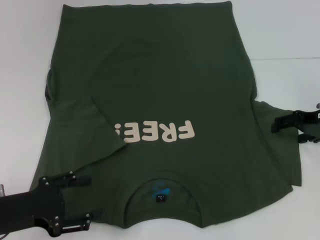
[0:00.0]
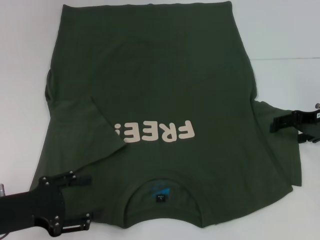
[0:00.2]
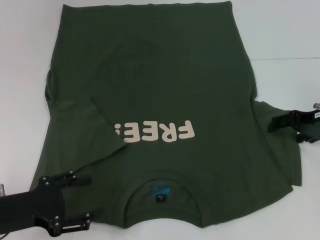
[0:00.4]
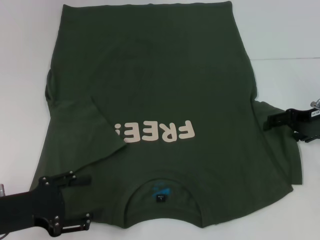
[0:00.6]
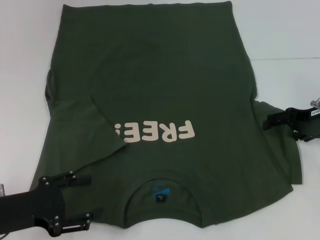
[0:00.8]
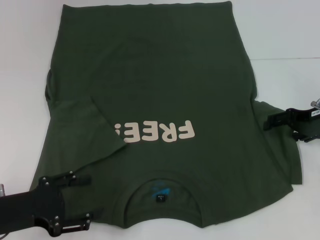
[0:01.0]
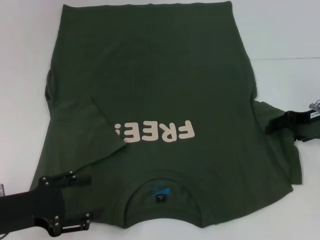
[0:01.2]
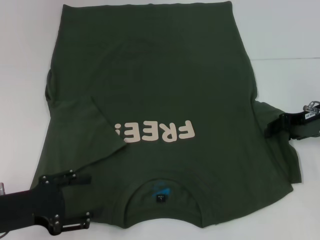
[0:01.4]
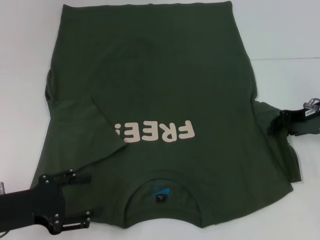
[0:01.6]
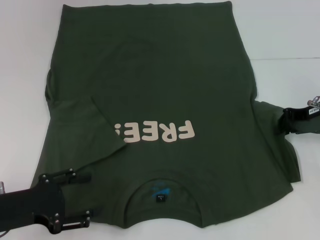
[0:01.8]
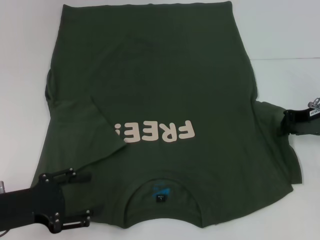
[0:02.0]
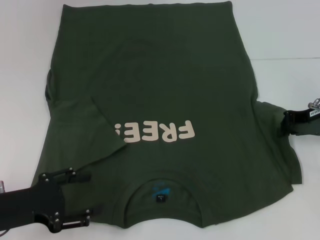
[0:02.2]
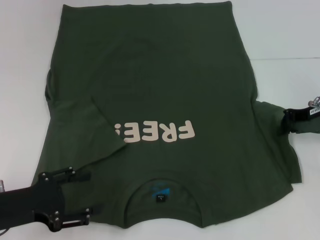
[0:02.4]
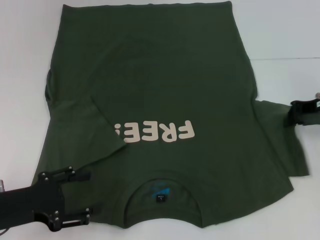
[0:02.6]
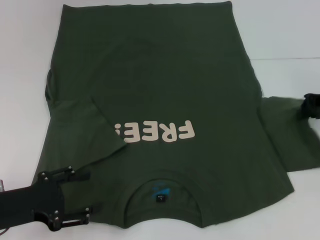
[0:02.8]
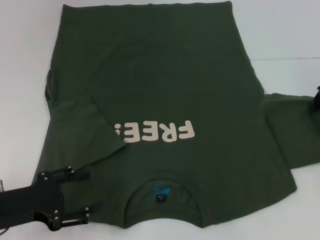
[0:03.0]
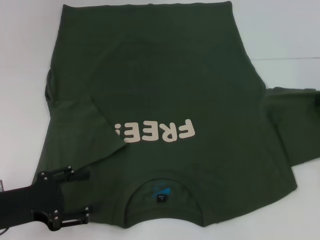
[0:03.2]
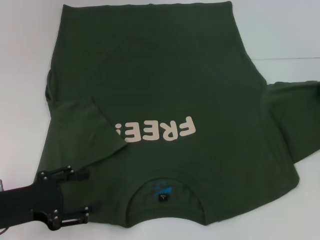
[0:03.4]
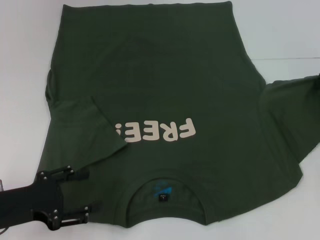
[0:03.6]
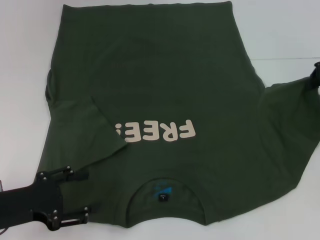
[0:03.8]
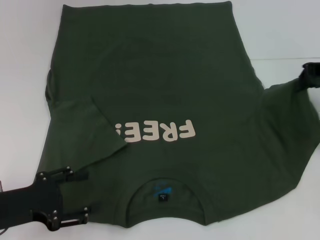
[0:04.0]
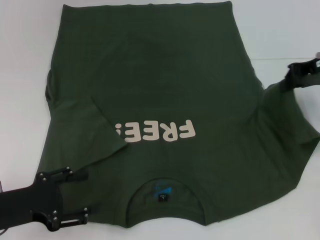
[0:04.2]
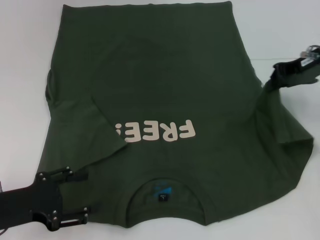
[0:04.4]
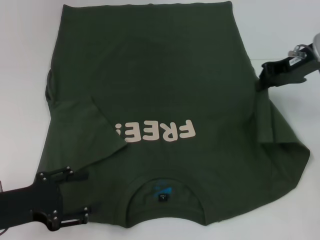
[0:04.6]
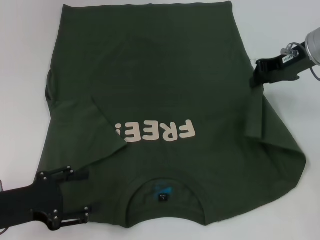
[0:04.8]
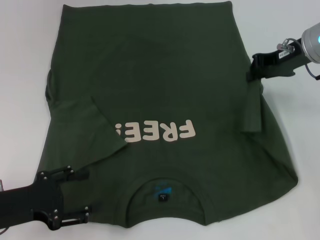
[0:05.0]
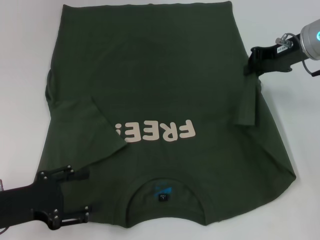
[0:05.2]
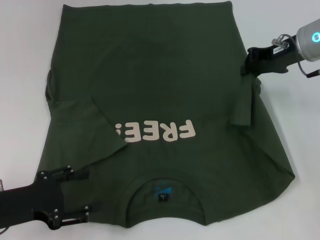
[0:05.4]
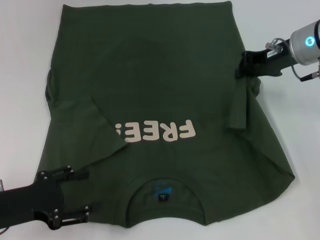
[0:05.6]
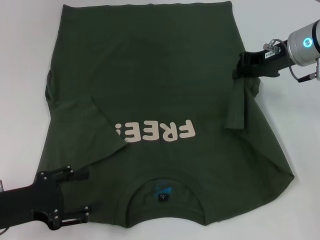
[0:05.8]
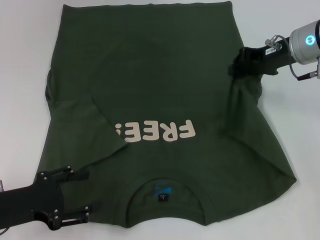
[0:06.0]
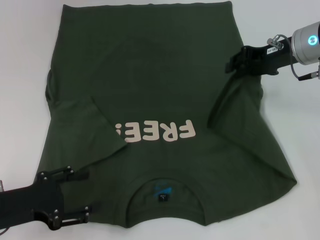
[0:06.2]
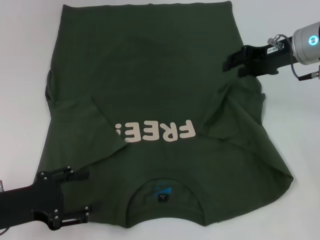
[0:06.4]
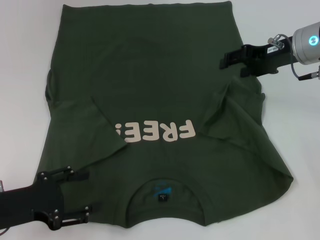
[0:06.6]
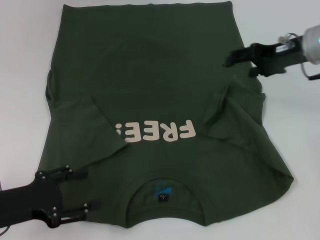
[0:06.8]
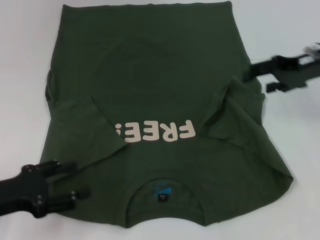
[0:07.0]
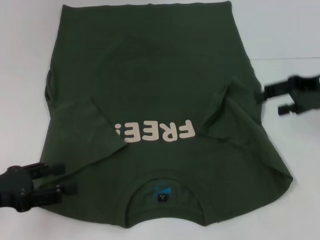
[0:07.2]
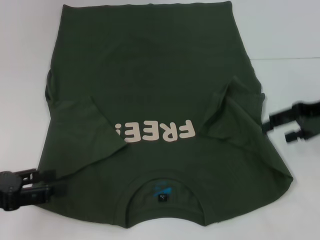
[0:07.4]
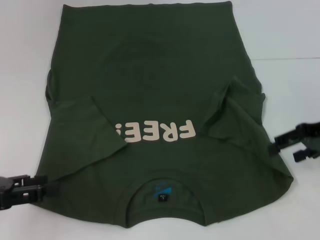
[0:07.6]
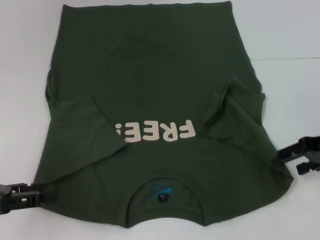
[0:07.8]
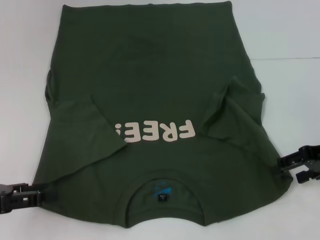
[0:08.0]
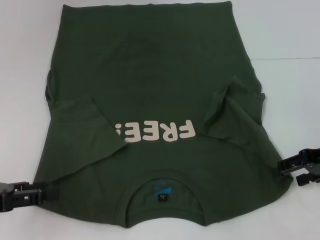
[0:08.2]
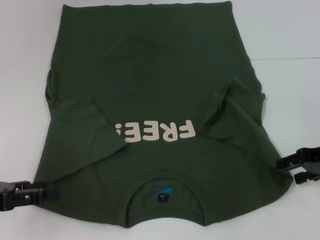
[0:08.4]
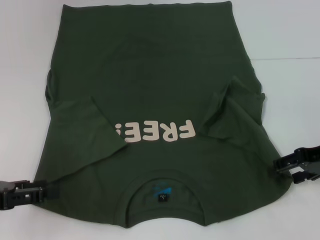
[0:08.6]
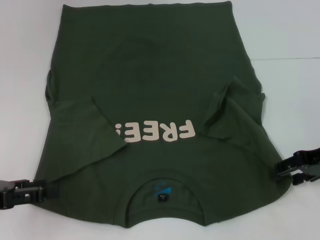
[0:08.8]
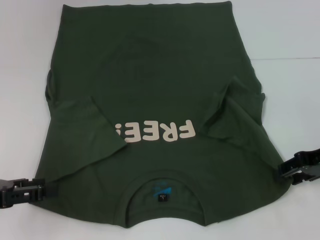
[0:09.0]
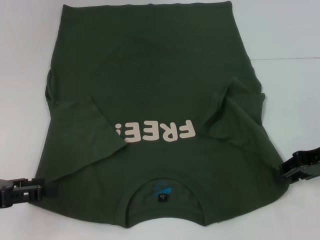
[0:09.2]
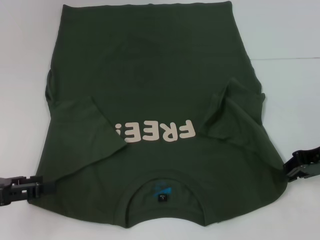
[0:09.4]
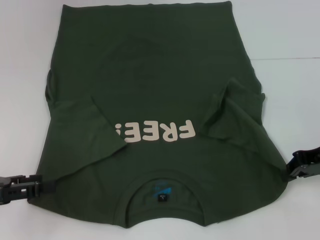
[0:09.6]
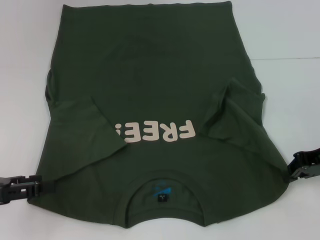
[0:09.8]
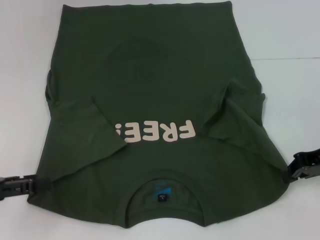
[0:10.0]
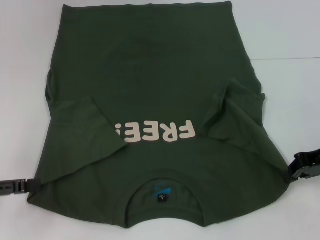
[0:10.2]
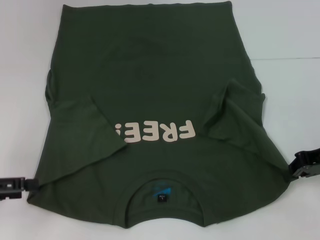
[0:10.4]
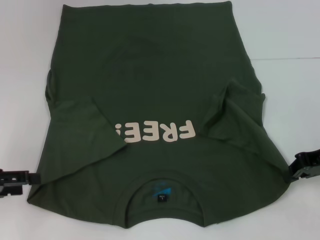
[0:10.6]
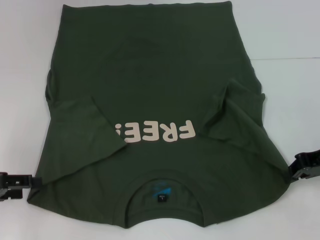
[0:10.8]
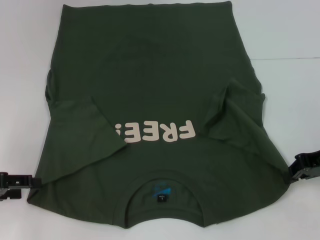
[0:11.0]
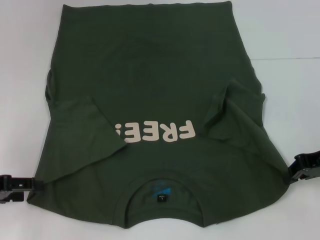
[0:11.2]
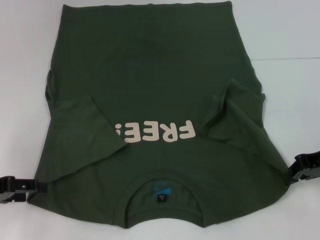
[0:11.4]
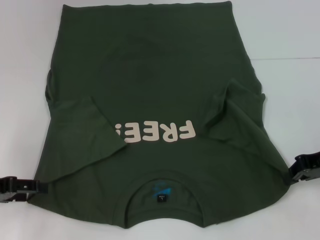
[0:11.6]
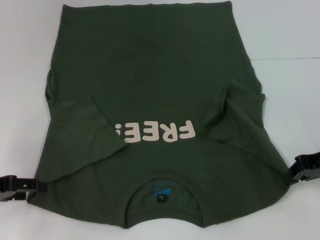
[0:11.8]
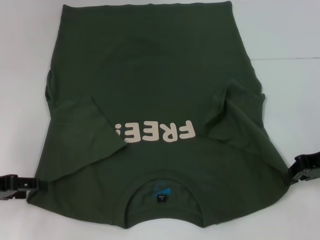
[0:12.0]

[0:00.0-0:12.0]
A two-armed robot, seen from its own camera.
Step, 0:00.0 to 0:06.4: Fold the bottom right sleeve with your right hand.
Step, 0:06.6 to 0:10.0: Grab the bottom right corner with your right hand.
0:00.0 to 0:01.6: The right gripper closes its fingers.
0:01.6 to 0:03.0: The right gripper goes some 5 cm to the right, and closes up.
0:03.0 to 0:04.4: The right gripper travels to the left by some 10 cm.
0:04.4 to 0:06.0: The grippers move only a little.
0:06.0 to 0:07.6: The right gripper is displaced backward and to the right by some 10 cm, and opens its fingers; the left gripper moves upward and to the left, approximately 5 cm.
0:07.6 to 0:09.0: There are only small adjustments of the grippers.
0:09.0 to 0:10.4: The right gripper closes.
0:10.4 to 0:12.0: The grippers stay close to where they were, moving slightly.

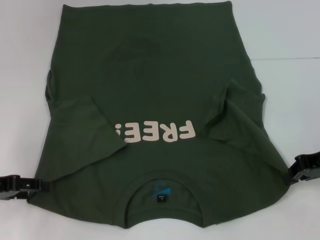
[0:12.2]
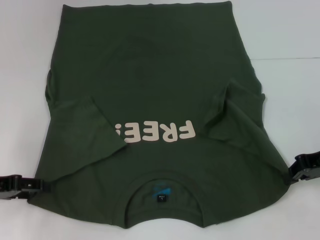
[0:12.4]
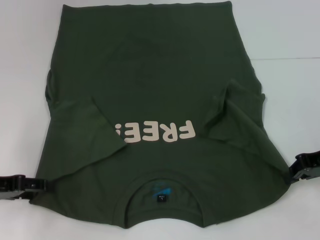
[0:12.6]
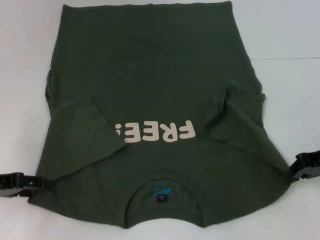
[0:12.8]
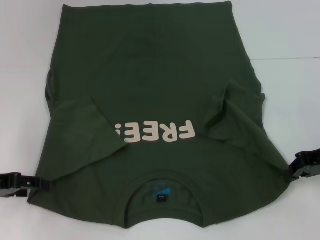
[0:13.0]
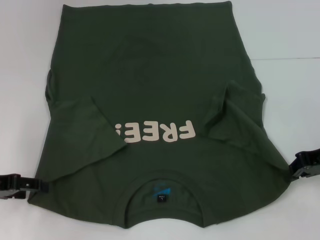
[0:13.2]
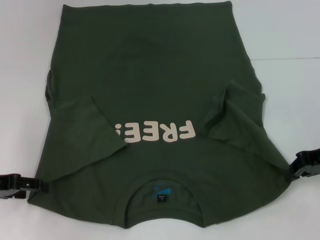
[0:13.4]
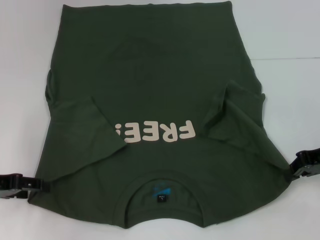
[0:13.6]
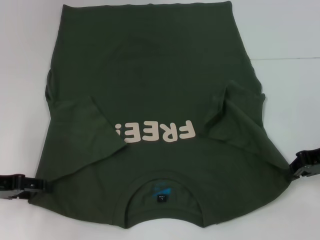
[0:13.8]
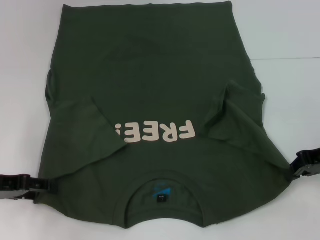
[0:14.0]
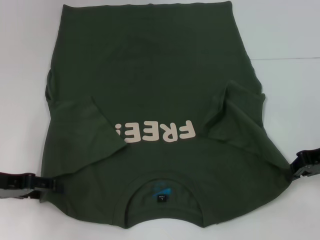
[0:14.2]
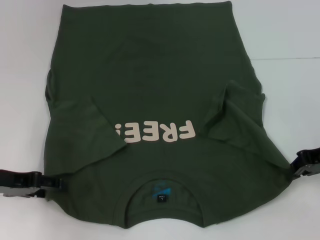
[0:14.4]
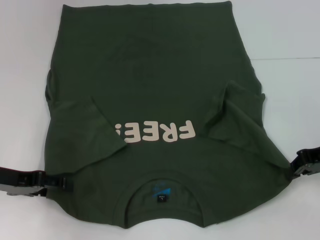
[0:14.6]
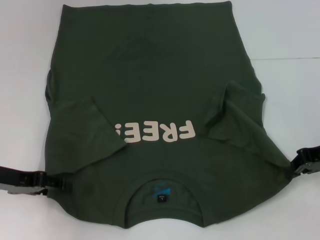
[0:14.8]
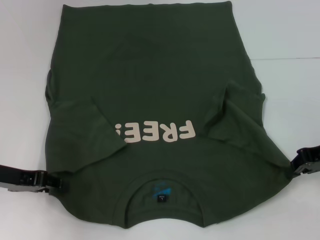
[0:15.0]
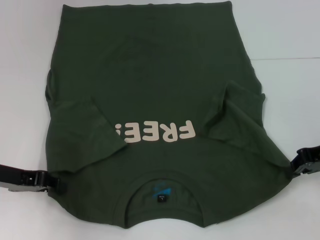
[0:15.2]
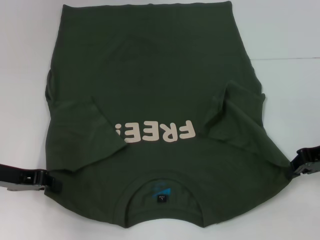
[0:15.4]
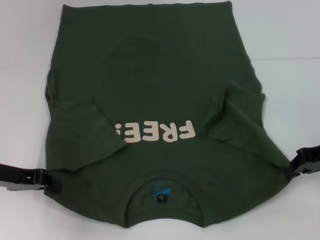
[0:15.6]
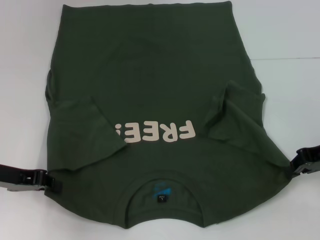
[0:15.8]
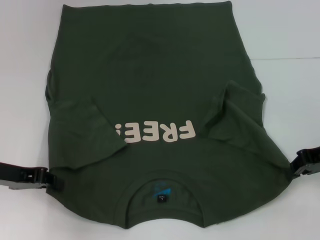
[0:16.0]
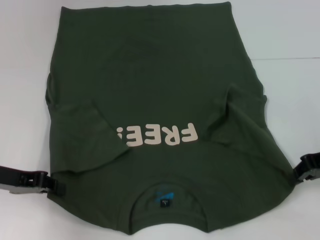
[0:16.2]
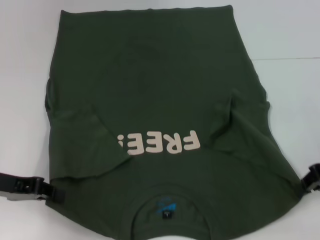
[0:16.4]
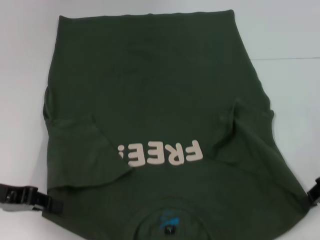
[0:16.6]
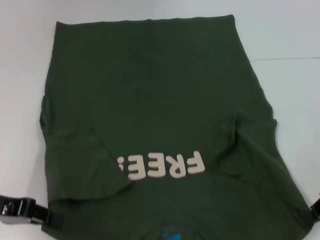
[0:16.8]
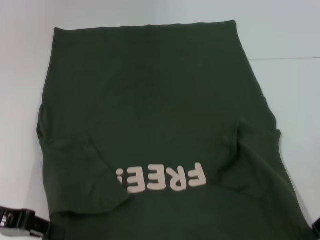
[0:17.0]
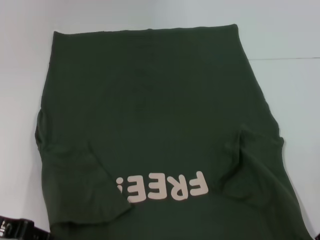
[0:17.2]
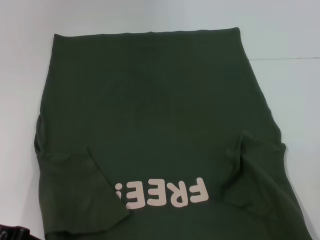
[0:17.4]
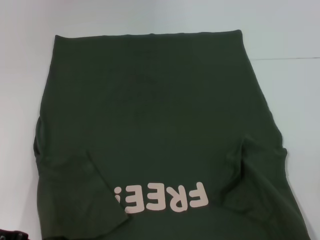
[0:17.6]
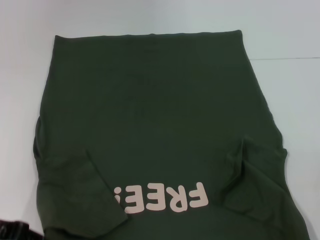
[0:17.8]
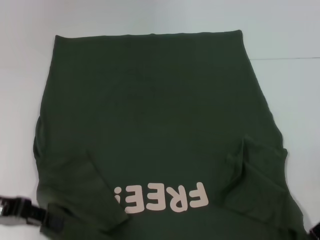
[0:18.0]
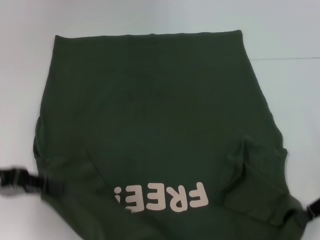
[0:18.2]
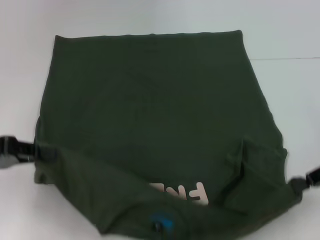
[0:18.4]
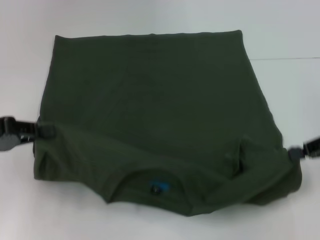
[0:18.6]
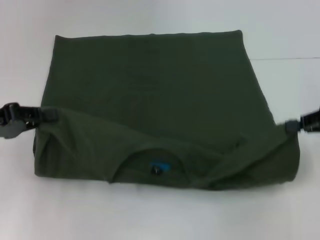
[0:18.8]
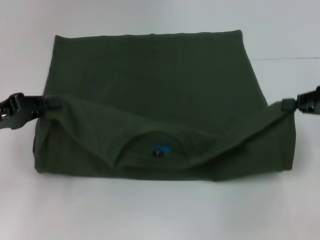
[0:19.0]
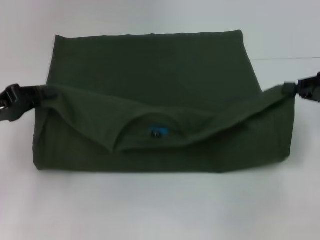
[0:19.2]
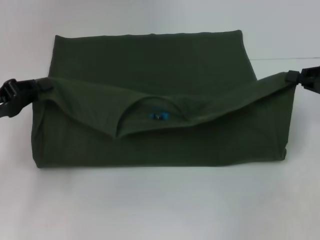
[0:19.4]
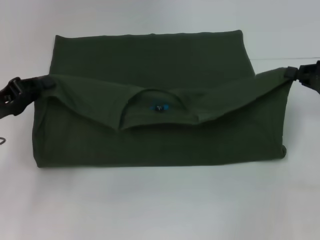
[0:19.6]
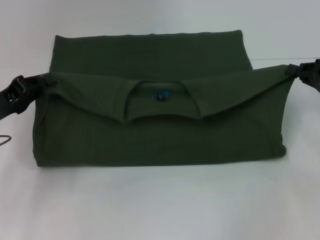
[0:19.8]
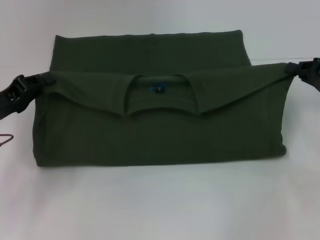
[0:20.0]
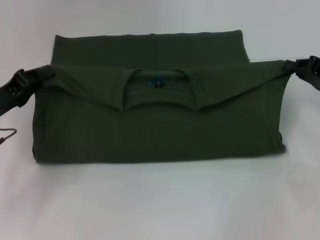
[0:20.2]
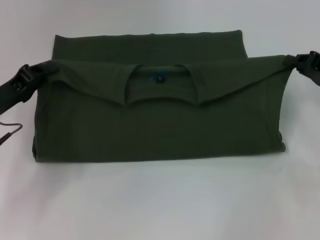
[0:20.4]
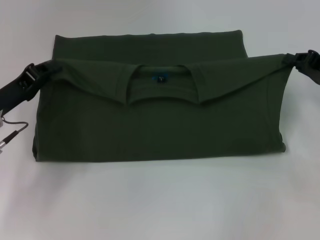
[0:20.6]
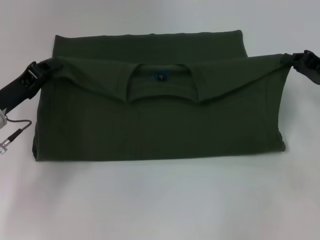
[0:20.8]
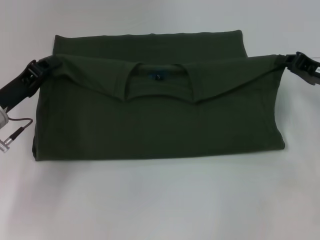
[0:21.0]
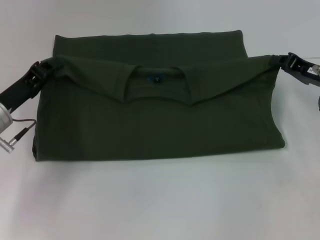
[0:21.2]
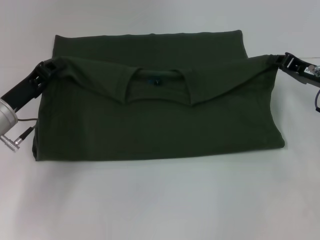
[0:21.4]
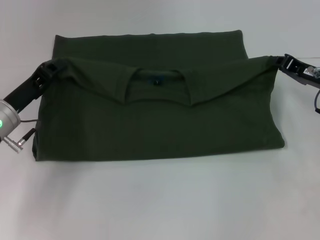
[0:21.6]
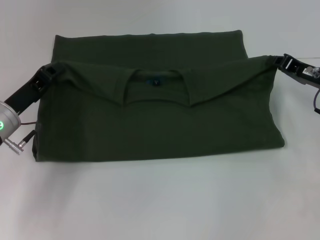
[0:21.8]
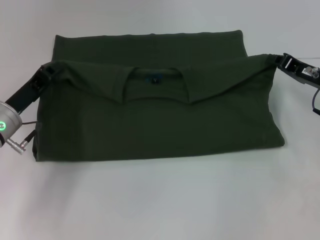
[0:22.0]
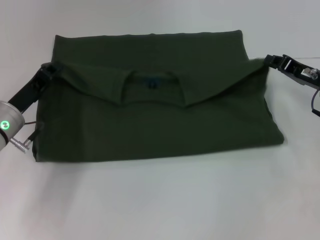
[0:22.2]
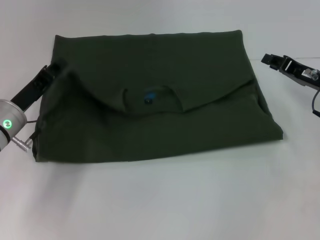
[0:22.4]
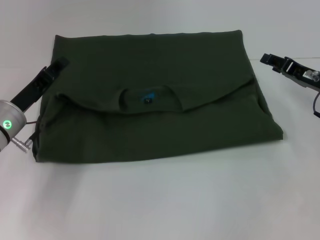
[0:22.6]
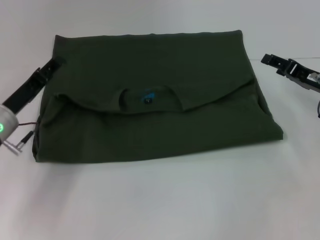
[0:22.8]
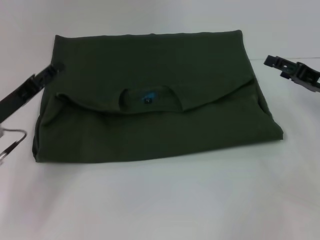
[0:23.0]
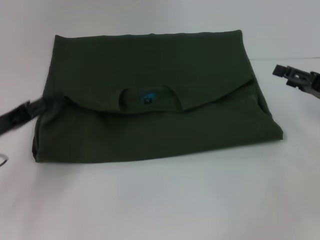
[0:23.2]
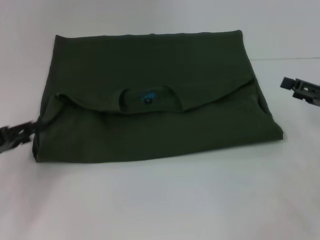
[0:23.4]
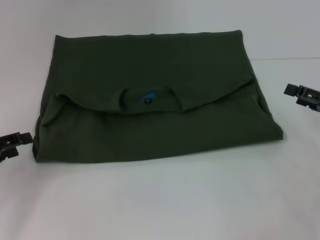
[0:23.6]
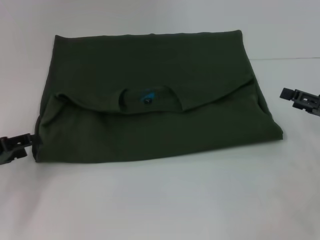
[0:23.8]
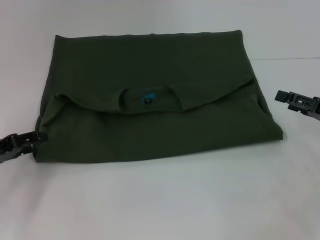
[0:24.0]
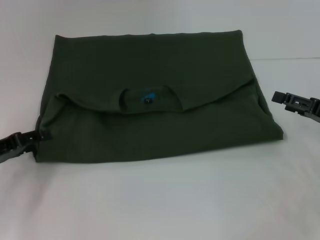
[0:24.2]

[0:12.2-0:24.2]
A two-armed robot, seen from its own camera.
Step, 0:12.2 to 0:16.0: Grab the bottom left corner with your left hand.
Step, 0:16.2 to 0:22.4: Fold the clothes with your left hand.
Step, 0:16.2 to 0:22.4: Fold the clothes with your right hand.
0:12.2 to 0:13.8: Neither gripper changes place.
0:13.8 to 0:15.2: The left gripper closes its fingers.
0:15.2 to 0:16.6: The left gripper closes its fingers.
0:16.6 to 0:18.2: The grippers make only small movements.
0:18.2 to 0:19.8: The left gripper changes place by about 5 cm; the right gripper heads forward, covering some 5 cm.
0:19.8 to 0:21.2: The right gripper ends up roughly 5 cm from where it was.
0:21.2 to 0:22.6: The right gripper opens. Meanwhile the left gripper opens its fingers.
0:22.6 to 0:24.2: The left gripper is displaced to the left and backward by about 10 cm. Meanwhile the right gripper heads backward, covering some 5 cm, and opens up.
